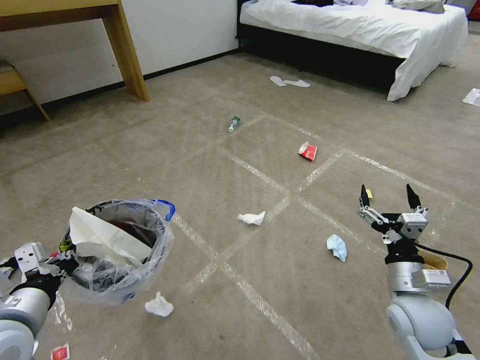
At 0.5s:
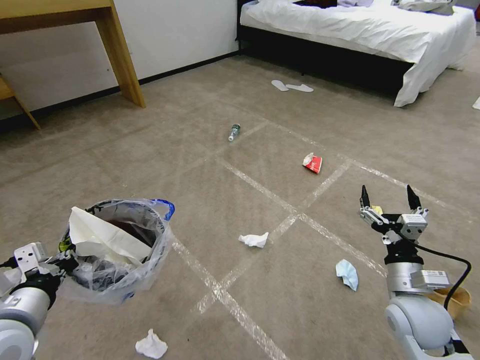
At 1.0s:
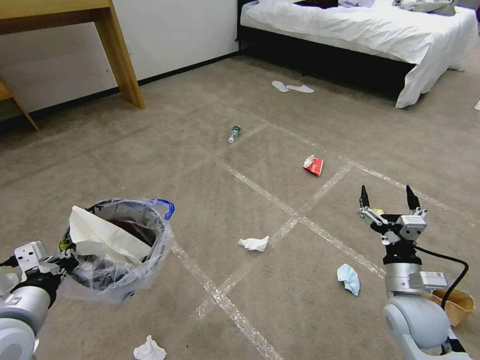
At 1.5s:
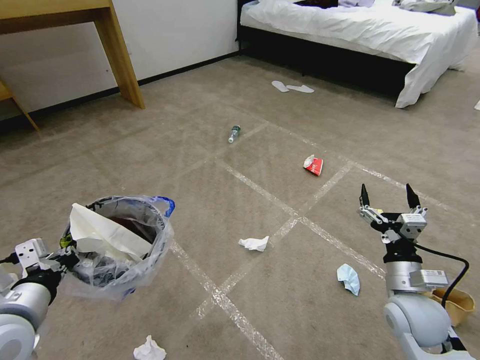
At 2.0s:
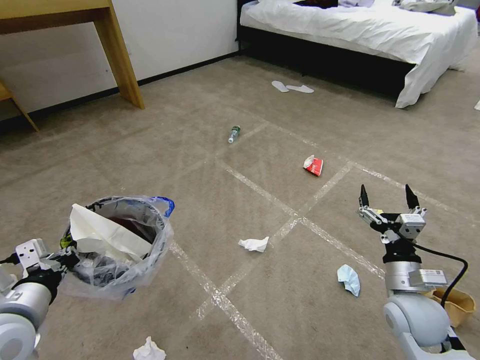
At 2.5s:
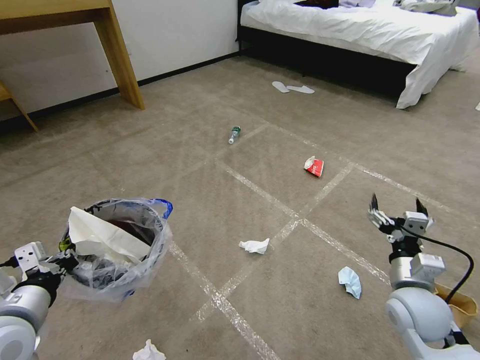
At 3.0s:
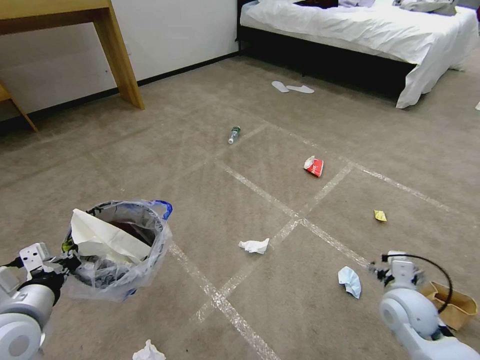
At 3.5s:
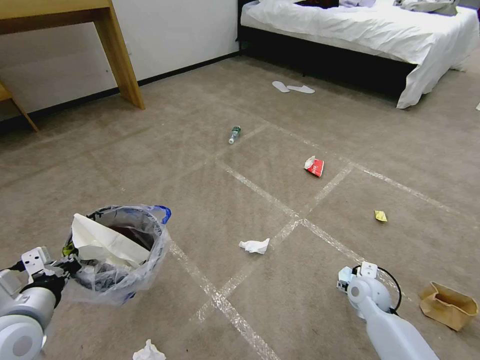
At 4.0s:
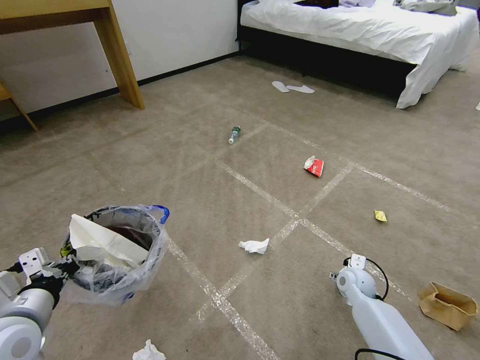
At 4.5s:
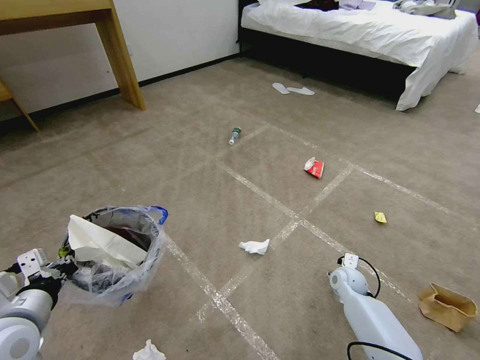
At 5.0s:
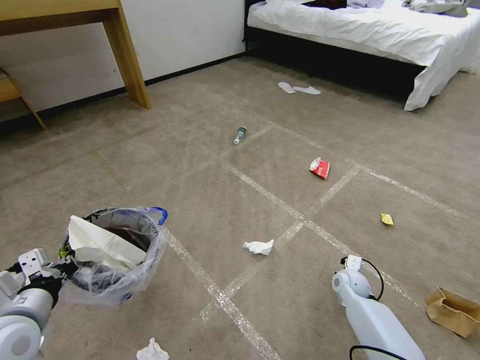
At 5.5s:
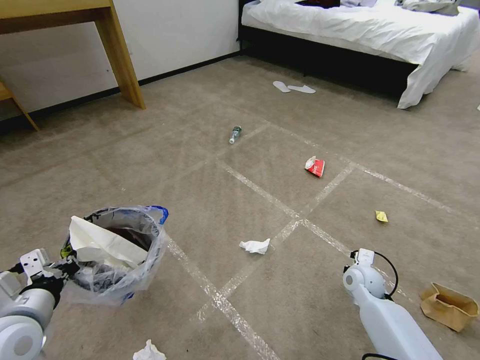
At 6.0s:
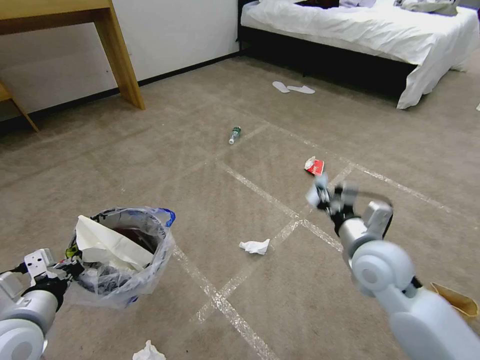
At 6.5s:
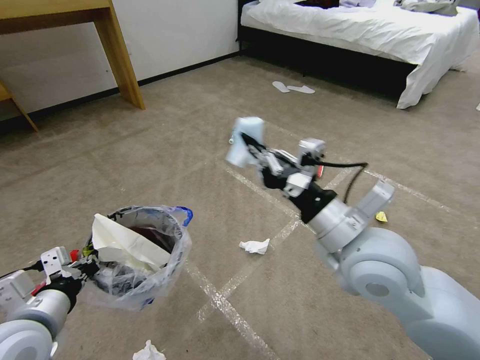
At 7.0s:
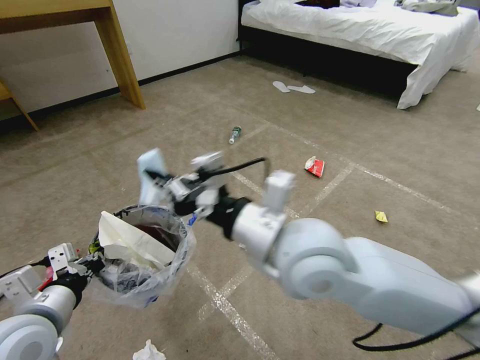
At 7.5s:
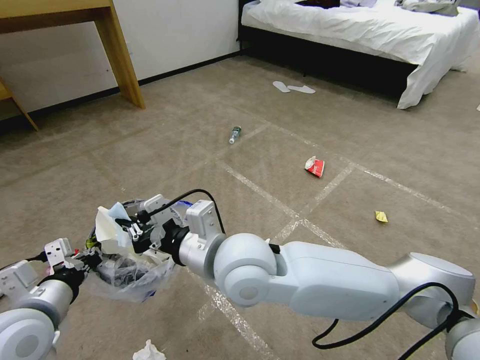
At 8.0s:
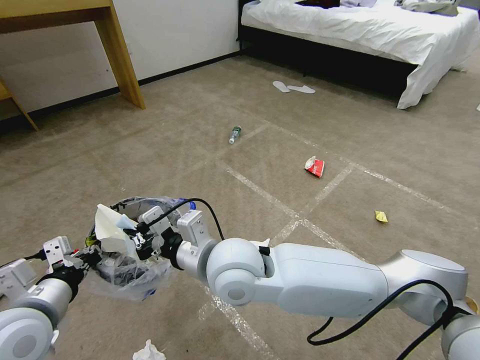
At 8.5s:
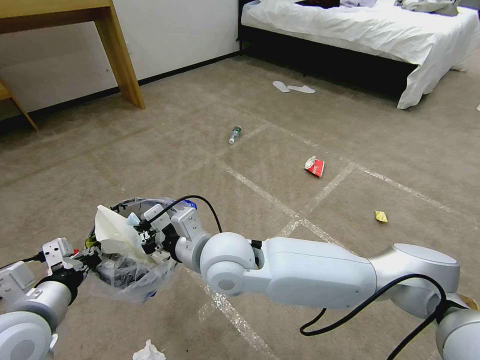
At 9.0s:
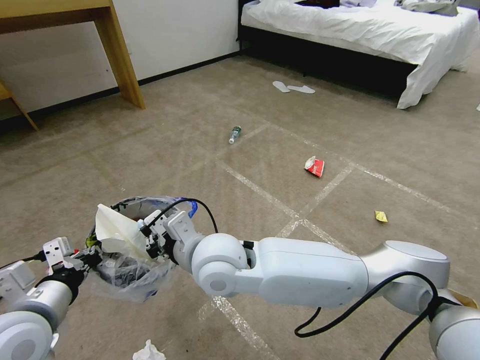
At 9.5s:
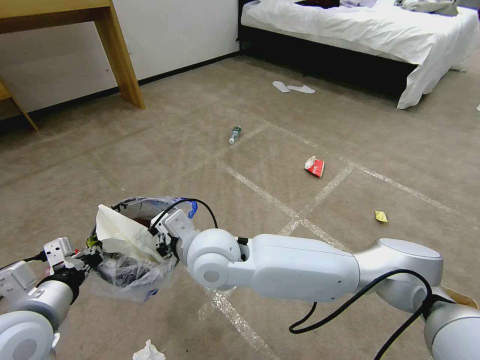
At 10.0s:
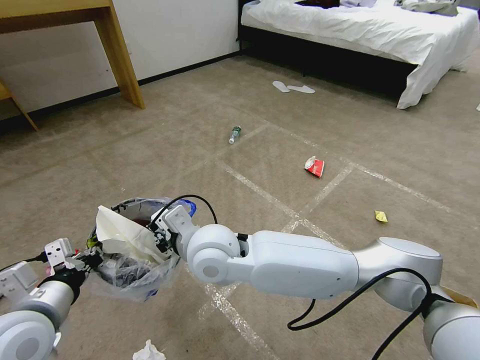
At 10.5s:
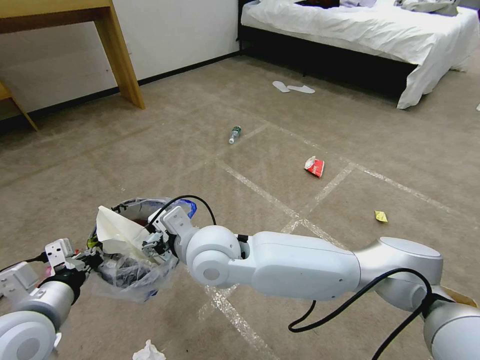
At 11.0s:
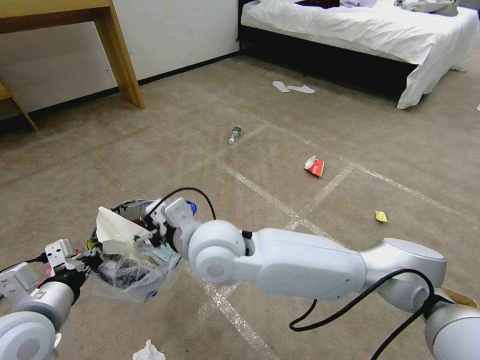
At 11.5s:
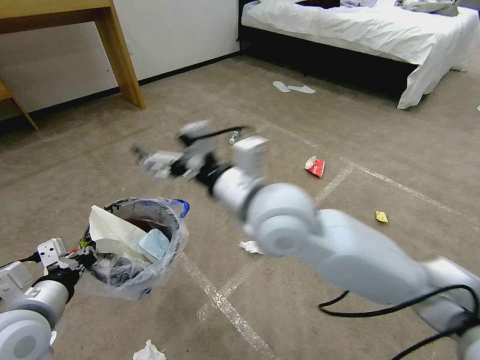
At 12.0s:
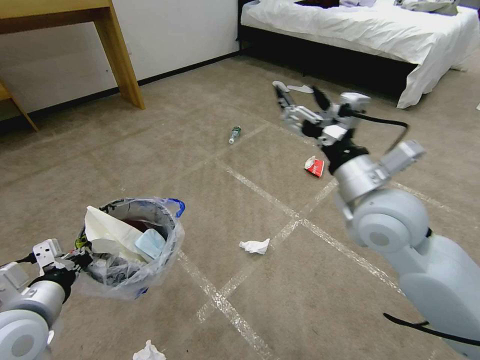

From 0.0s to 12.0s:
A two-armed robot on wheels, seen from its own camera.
Task of the whole recording: Pick up the trash bin and place the garbage on the floor into it.
From 0.0s to 2.0s: Both grippers stay put.
From 2.0s to 4.0s: The right gripper shifts roughly 20 cm downward and forward.
From 4.0s to 6.0s: The right gripper is displaced upward by about 25 cm, and closes.
From 6.0s to 8.0s: The right gripper goes about 25 cm to the left.
From 8.0s to 10.0s: The right gripper changes place by approximately 5 cm.
From 10.0s to 12.0s: The right gripper travels to the right by roughly 25 cm, and opens up.

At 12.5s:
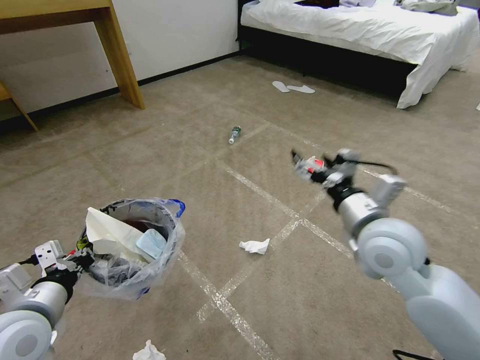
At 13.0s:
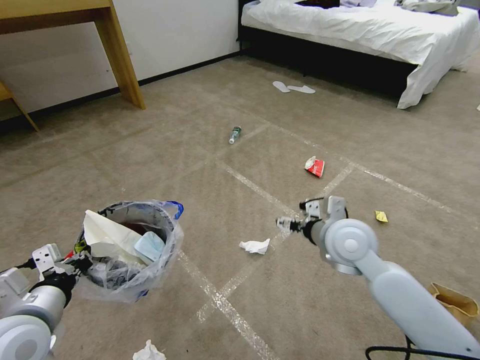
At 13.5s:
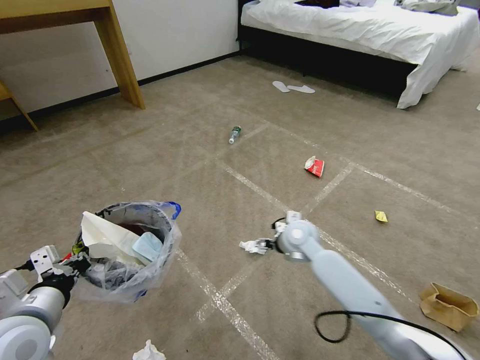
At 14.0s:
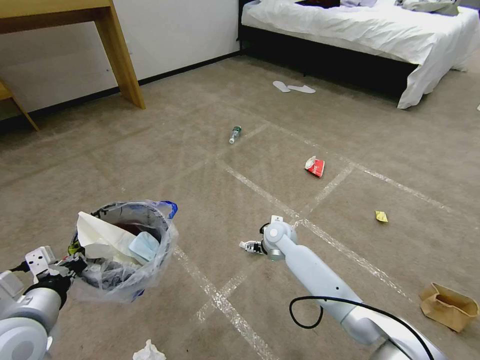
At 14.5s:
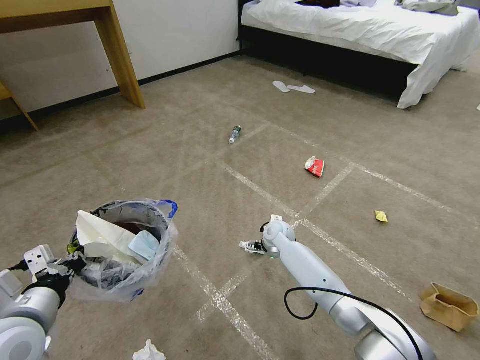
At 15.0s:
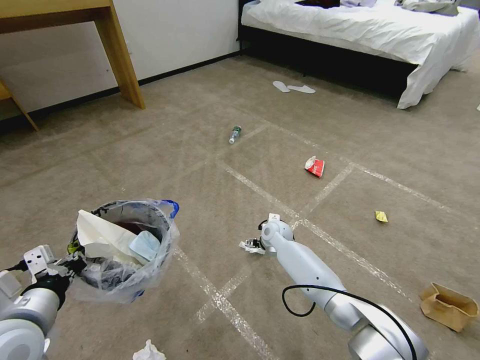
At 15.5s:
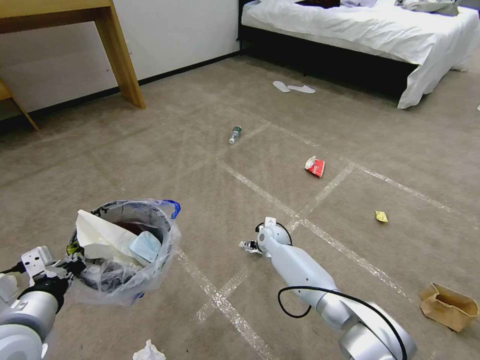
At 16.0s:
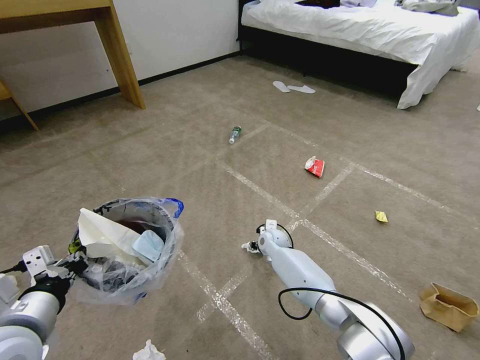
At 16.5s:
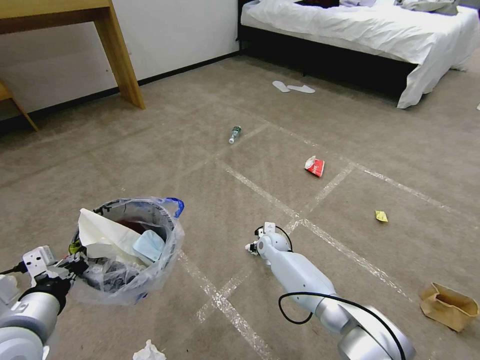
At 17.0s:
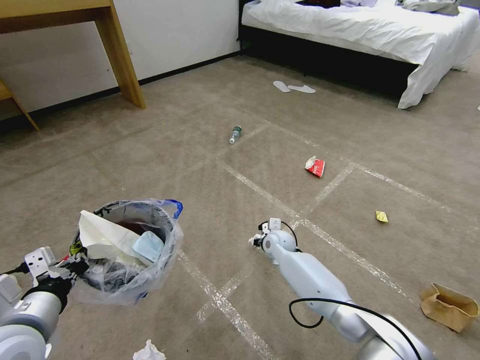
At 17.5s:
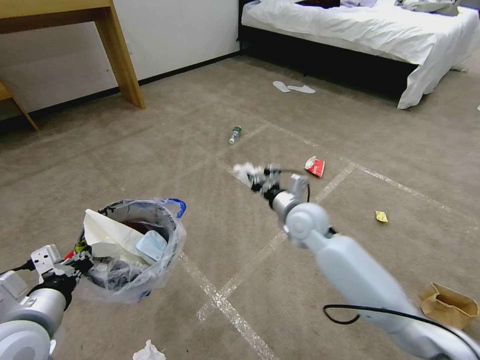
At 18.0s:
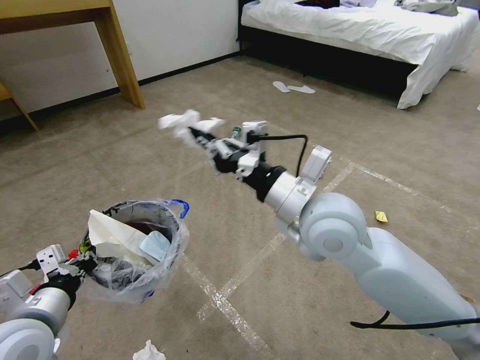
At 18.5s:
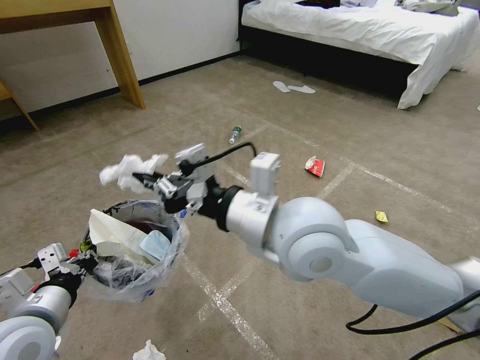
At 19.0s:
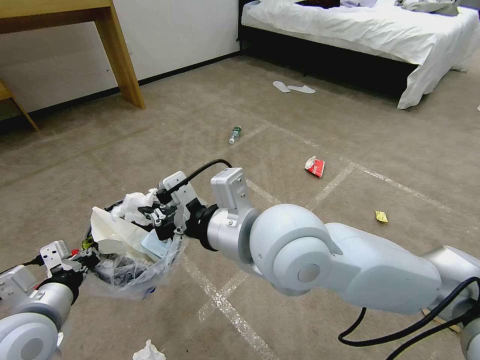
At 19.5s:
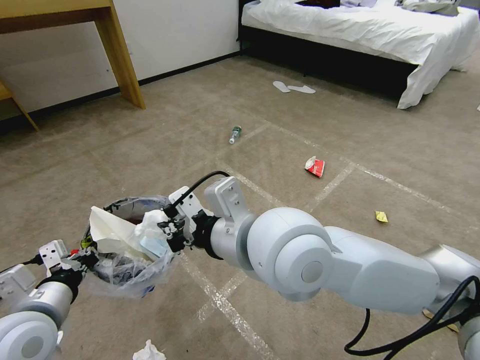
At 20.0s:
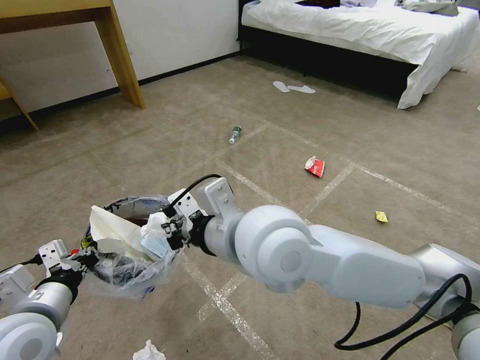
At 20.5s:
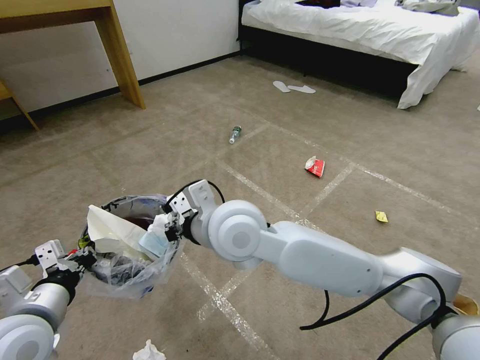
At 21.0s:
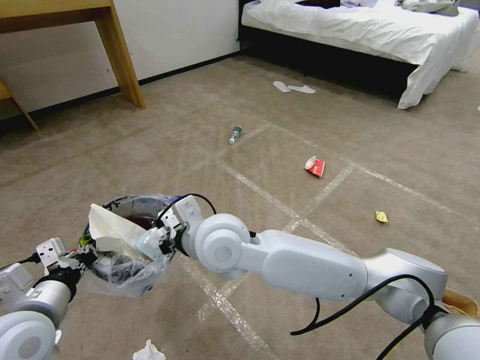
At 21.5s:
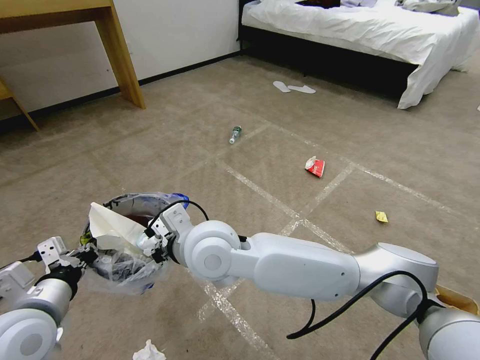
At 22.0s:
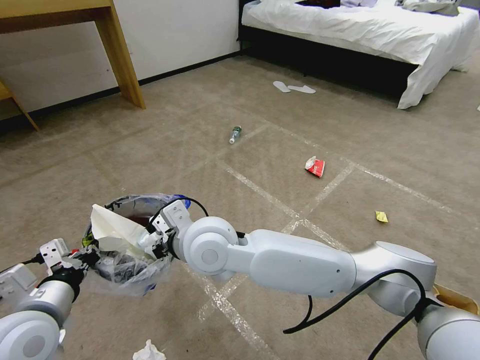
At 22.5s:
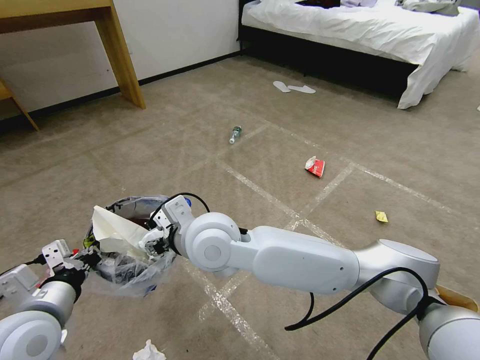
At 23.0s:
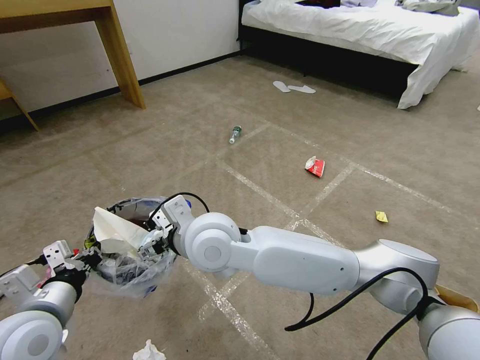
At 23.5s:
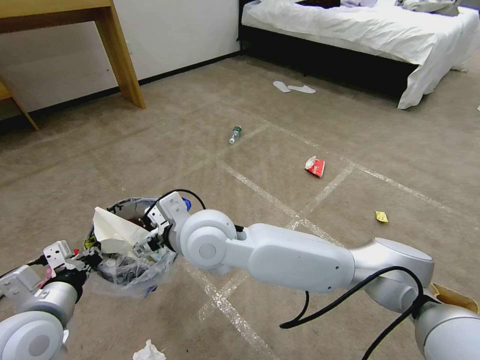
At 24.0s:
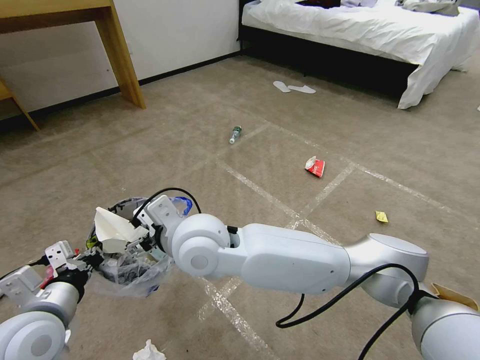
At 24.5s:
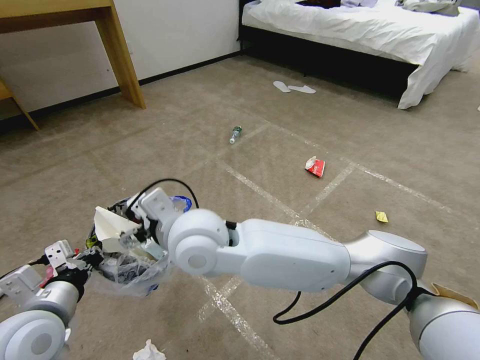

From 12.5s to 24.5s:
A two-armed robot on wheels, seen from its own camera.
Task of the whole recording: Pick up the trash bin and place the garbage on the floor into it.
From 12.5s to 14.5s: The right gripper shifts approximately 35 cm downward, forward and to the left.
From 14.5s to 16.5s: The right gripper moves downward, roughly 5 cm, and closes up.
From 16.5s to 18.5s: The right gripper moves upward and backward, approximately 50 cm.
From 18.5s to 20.5s: The right gripper heads to the left, downward and forward, covering some 10 cm.
From 20.5s to 22.5s: The right gripper opens up.
From 22.5s to 24.5s: The right gripper opens its fingers.

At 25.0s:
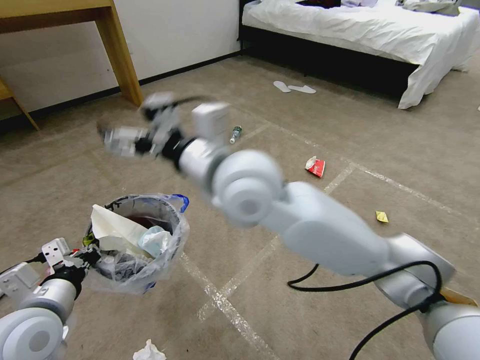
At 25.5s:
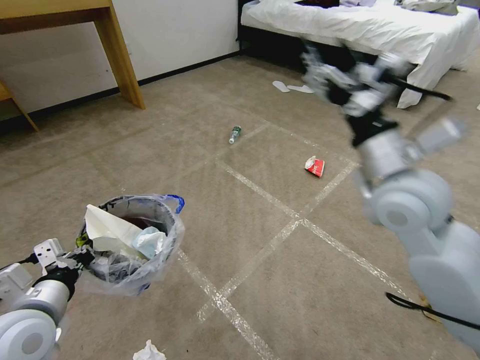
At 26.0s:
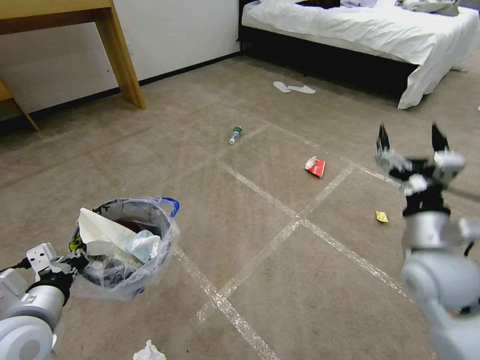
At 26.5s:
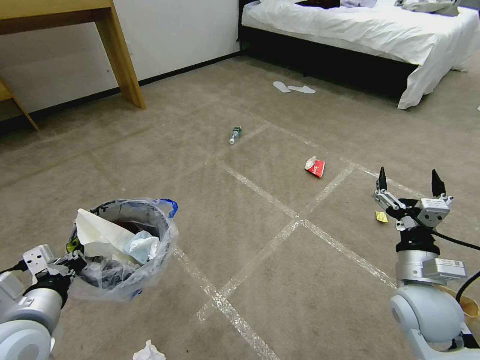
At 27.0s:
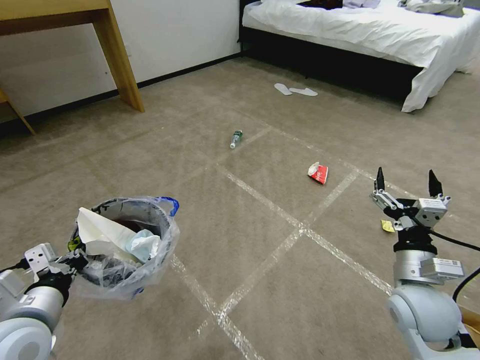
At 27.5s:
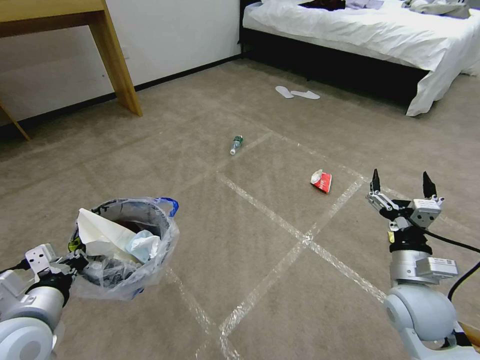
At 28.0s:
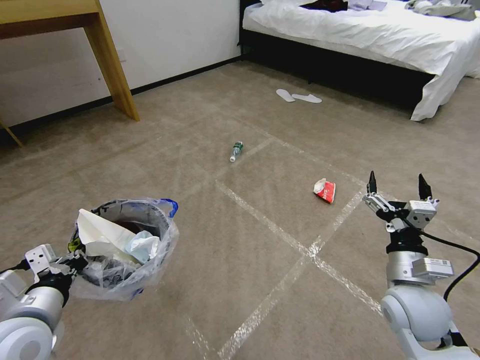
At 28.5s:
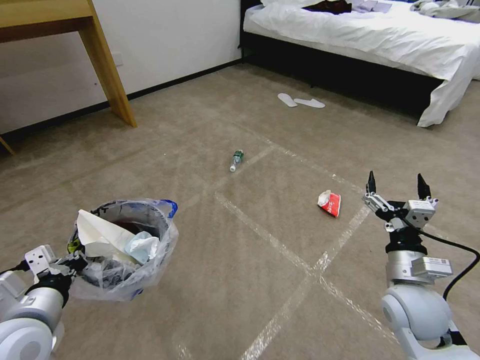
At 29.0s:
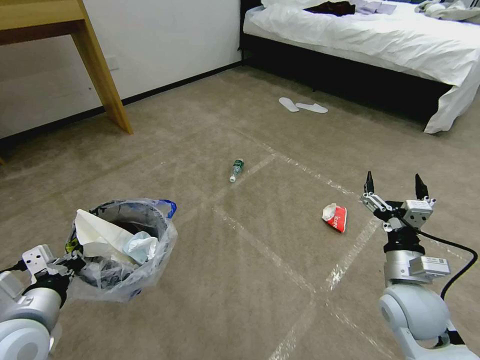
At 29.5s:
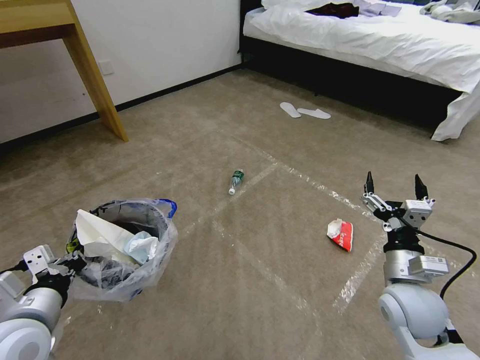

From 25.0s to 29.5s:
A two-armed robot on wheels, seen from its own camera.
Task of the whole recording: Pick up the trash bin and place the garbage on the floor into it.
From 25.0s to 27.0s: The right gripper heads to the right and downward, covering some 40 cm.
